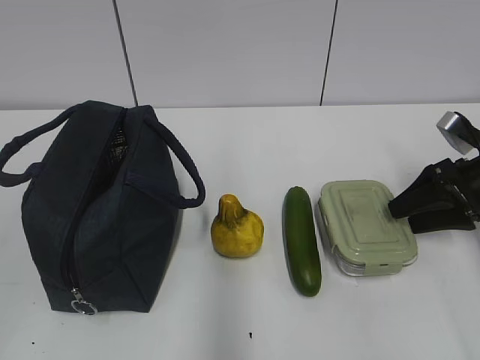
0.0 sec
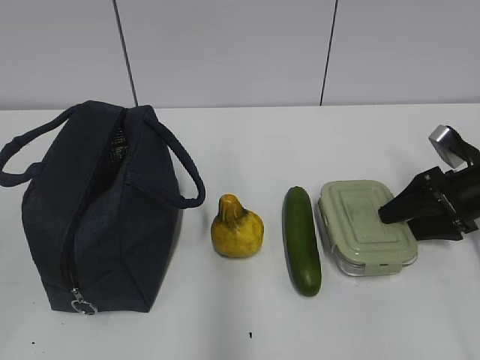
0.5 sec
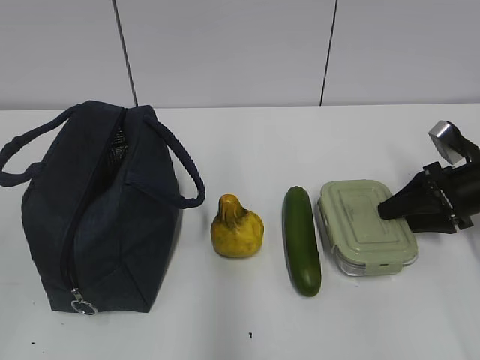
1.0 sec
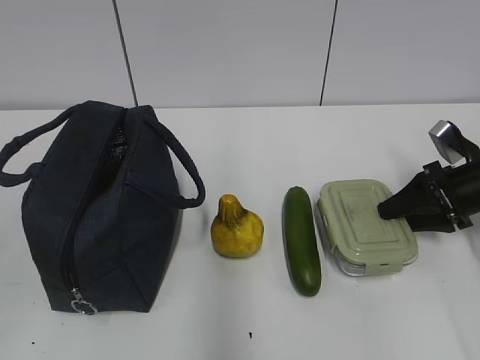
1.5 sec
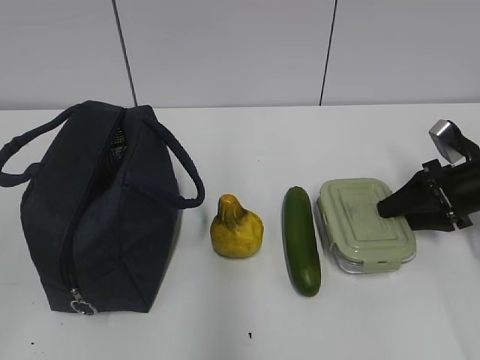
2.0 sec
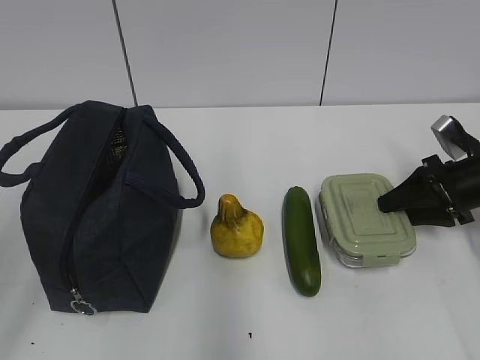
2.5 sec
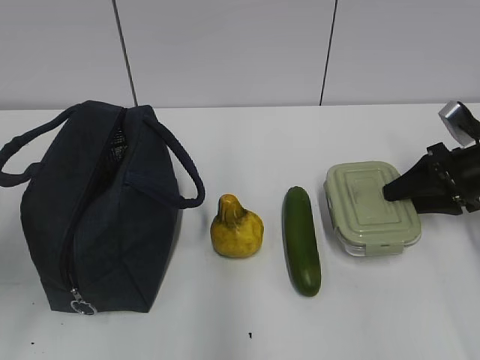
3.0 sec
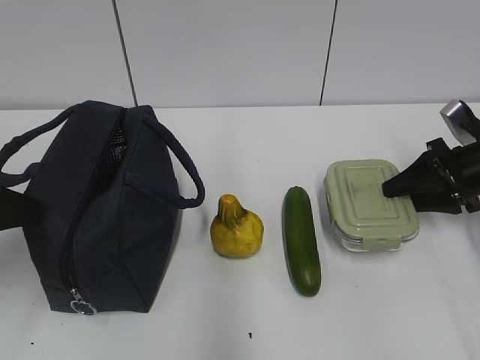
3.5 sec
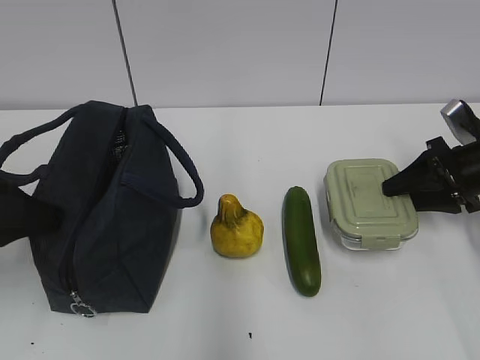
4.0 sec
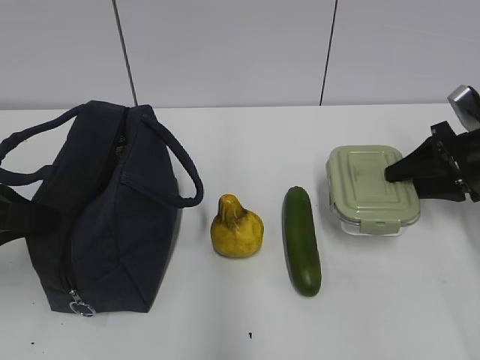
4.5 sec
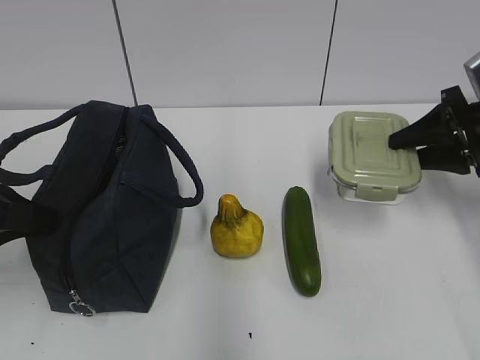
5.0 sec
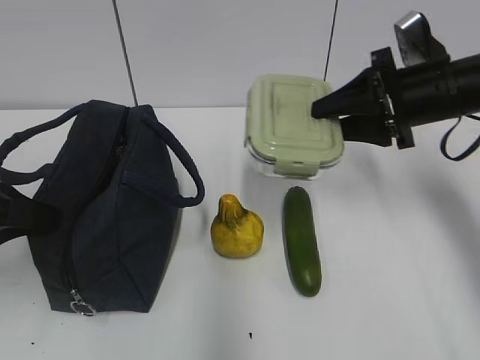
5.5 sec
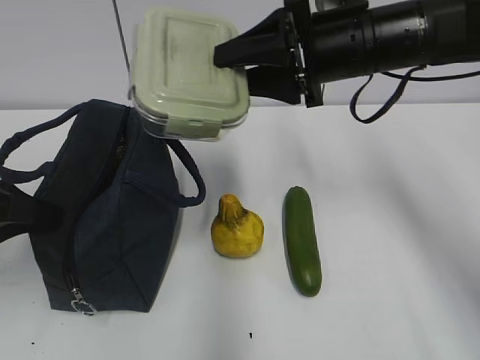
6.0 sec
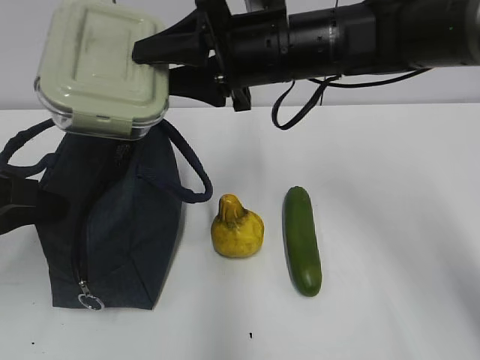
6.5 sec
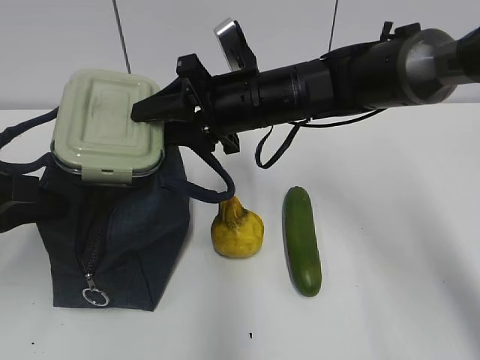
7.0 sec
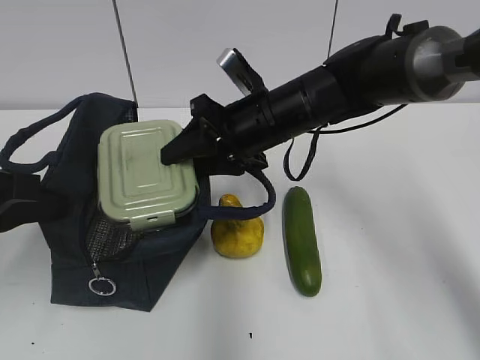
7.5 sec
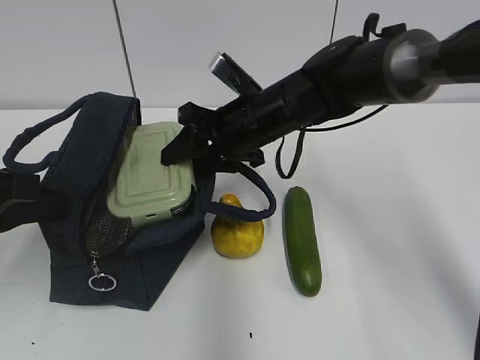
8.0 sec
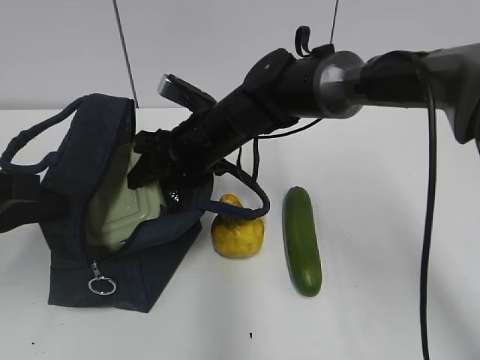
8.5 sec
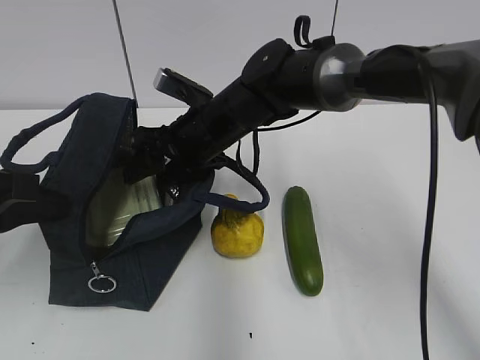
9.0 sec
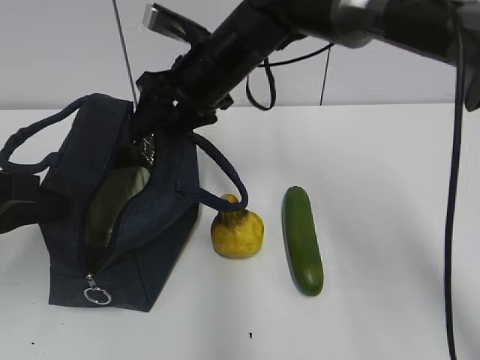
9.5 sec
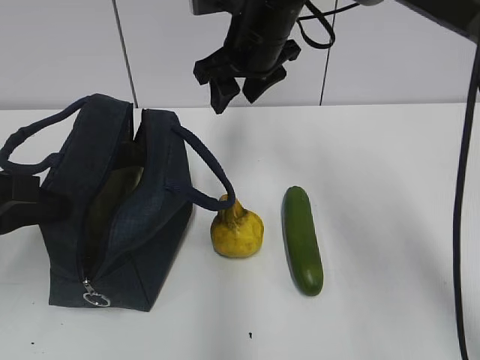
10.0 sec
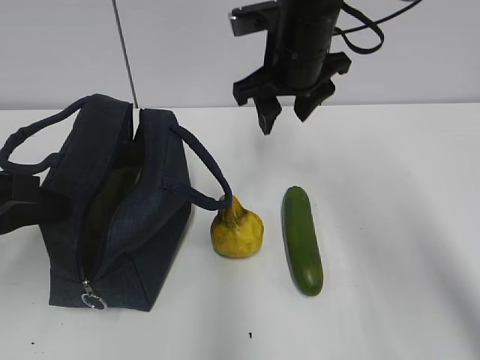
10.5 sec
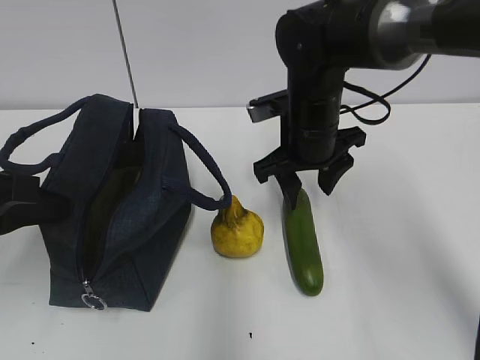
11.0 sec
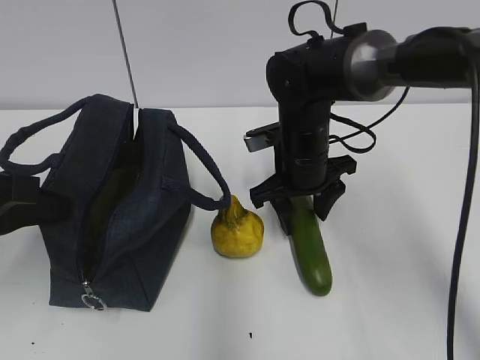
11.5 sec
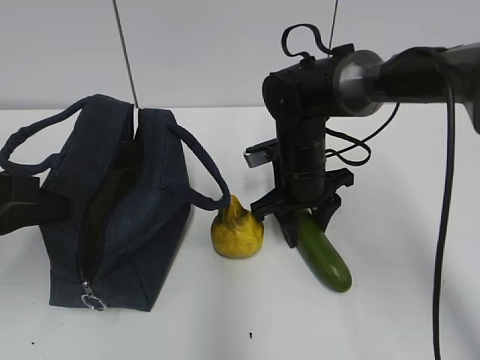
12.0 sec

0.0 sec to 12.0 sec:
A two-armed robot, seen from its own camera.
Step, 0.0 sec to 2.5 sec: Grab the lunch box with your right hand.
Step, 3.0 sec to 4.0 sec: Grab the lunch bag with your left hand.
Step, 4.5 sec to 9.0 sec: Place it into the bag with your right hand.
0.0 sec to 2.0 sec: The grippers move only a little.
2.0 sec to 4.0 sec: The left gripper is displaced forward by approximately 20 cm.
4.0 sec to 6.0 sec: The right gripper travels to the left and upward by some 25 cm. The left gripper closes.
6.0 sec to 8.0 sec: The right gripper is displaced downward and to the left by some 15 cm.
8.0 sec to 10.0 sec: The right gripper heads upward, covering approximately 10 cm.
10.0 sec to 12.0 sec: The right gripper travels downward by about 15 cm.

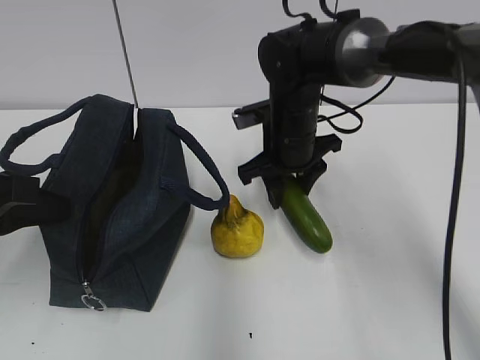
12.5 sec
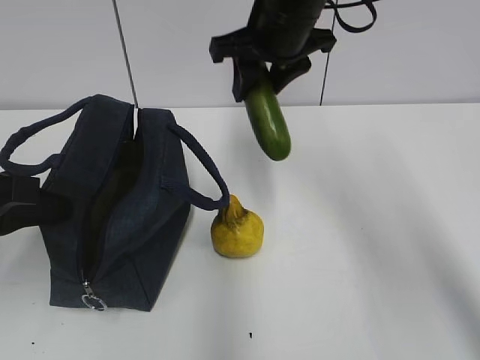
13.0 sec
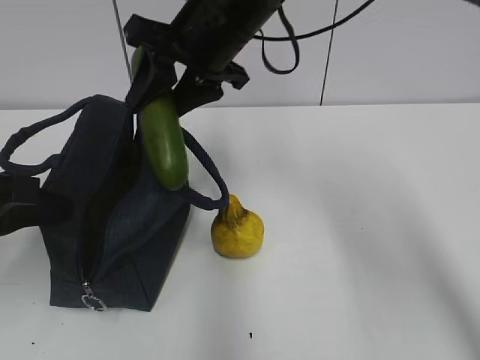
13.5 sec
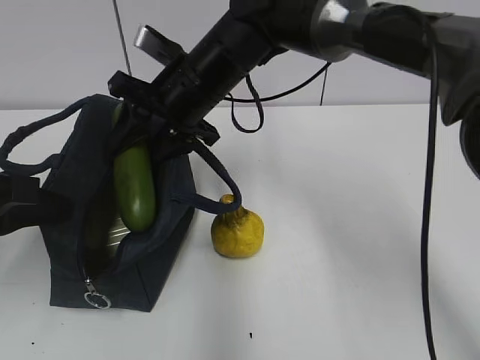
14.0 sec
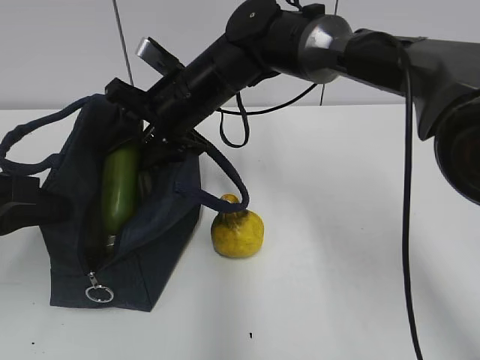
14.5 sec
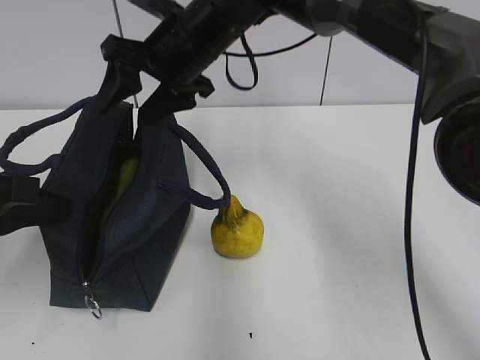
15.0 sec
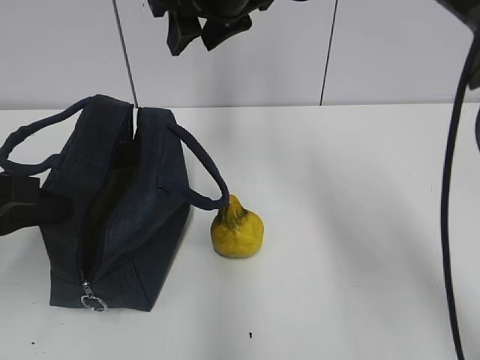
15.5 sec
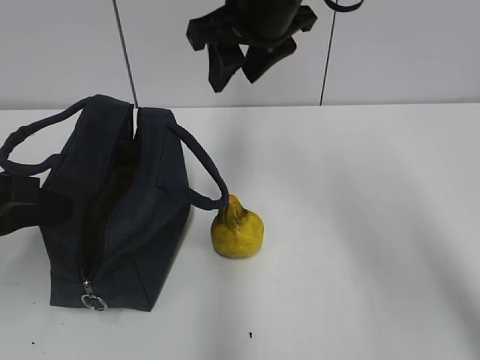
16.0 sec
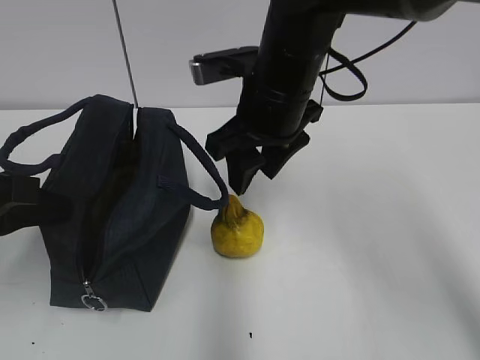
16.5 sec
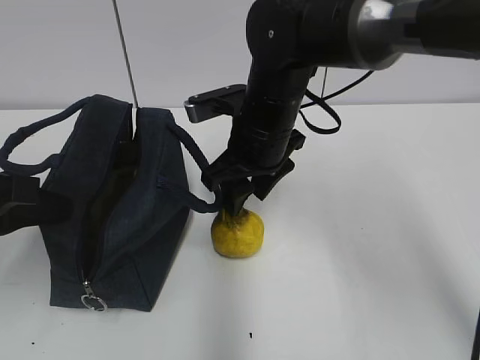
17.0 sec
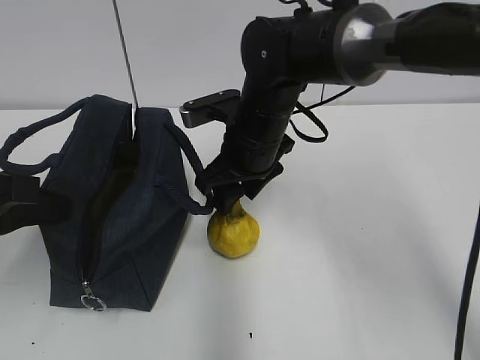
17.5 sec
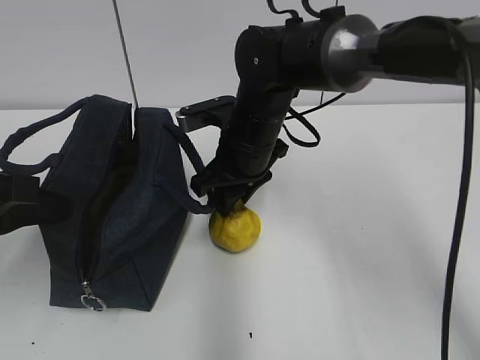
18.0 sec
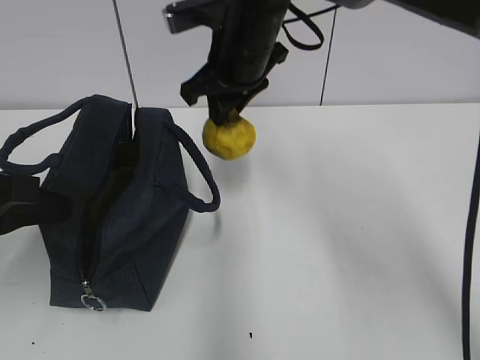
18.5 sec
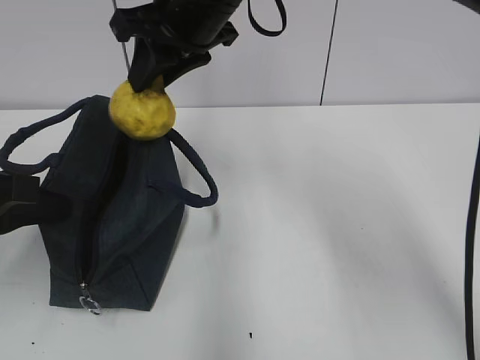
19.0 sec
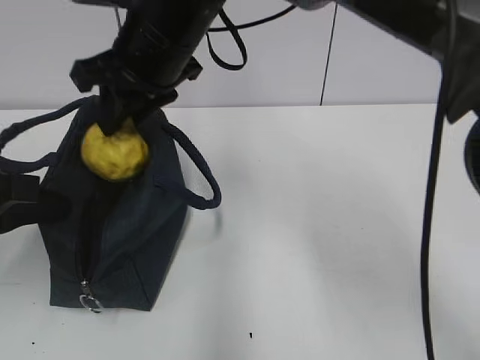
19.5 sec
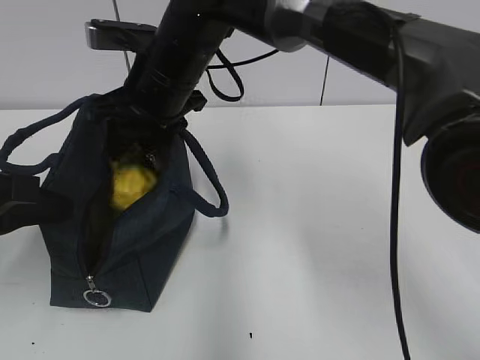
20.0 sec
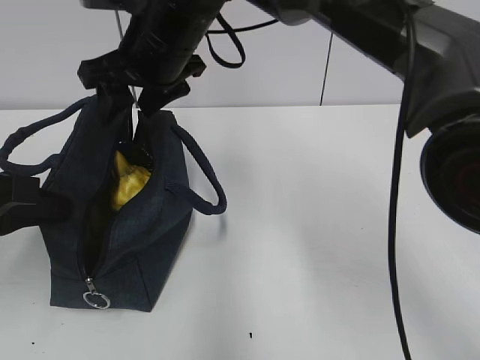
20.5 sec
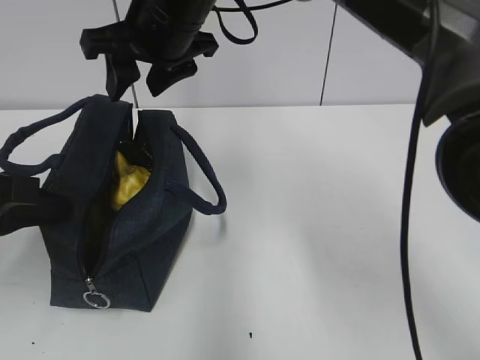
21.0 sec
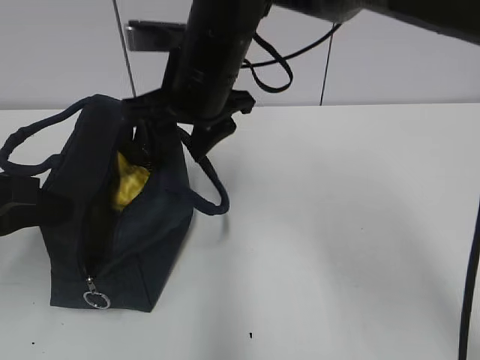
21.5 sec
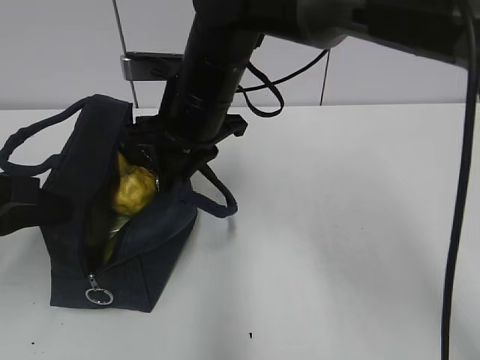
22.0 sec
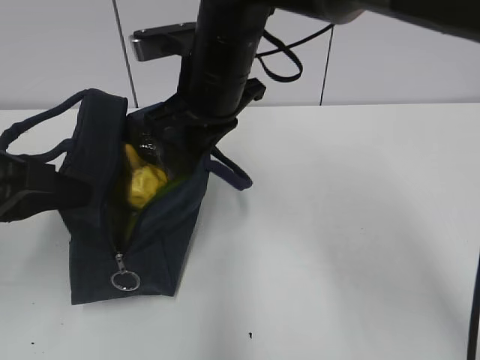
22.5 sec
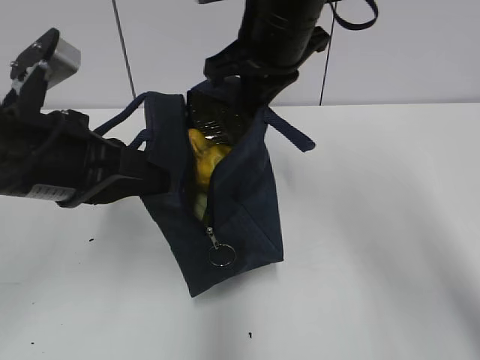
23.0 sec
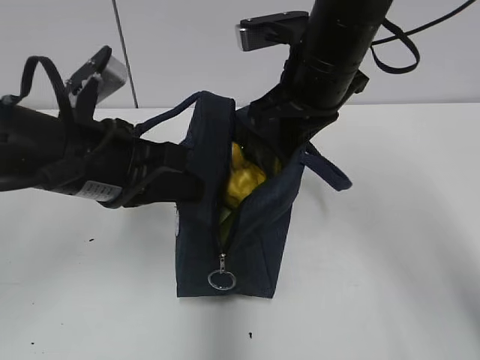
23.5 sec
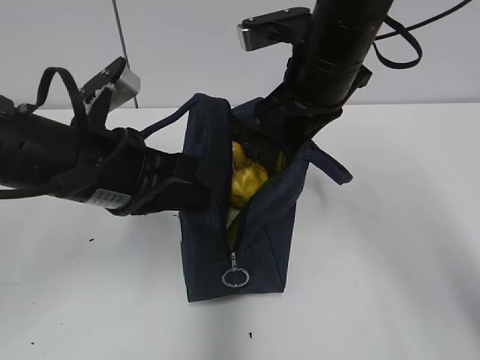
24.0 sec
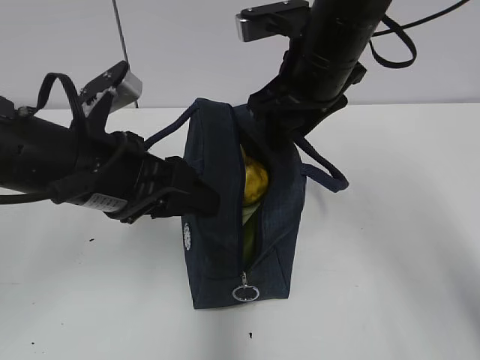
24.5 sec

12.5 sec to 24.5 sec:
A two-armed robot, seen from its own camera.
Step, 12.5 sec to 14.5 sec: Place it into the bag with your right hand.
Step, 15.0 sec to 18.0 sec: Grab the pear with your right hand.
Step, 20.5 sec to 22.0 sec: Grab the lunch bag with your right hand.
12.5 sec to 14.5 sec: The right gripper travels to the left by about 10 cm, and travels upward and back again, roughly 15 cm each way.
14.5 sec to 16.5 sec: The right gripper shifts approximately 10 cm to the right and backward, and goes upward and returns, roughly 15 cm each way.
16.5 sec to 18.5 sec: The right gripper moves forward, some 5 cm, reaches roughly 5 cm downward, then returns, and closes.
18.5 sec to 20.5 sec: The right gripper is displaced to the left by about 5 cm, and opens.
20.5 sec to 22.5 sec: The right gripper changes place by some 5 cm, and closes up.
22.5 sec to 24.5 sec: The two grippers go approximately 10 cm to the right. The right gripper opens. Meanwhile the left gripper opens.

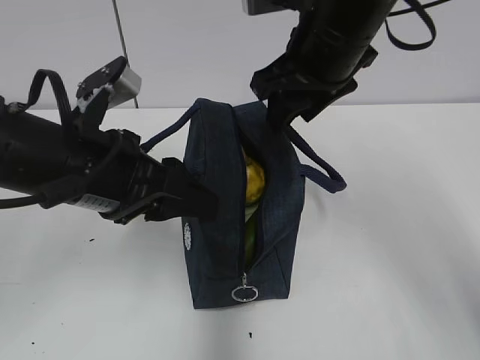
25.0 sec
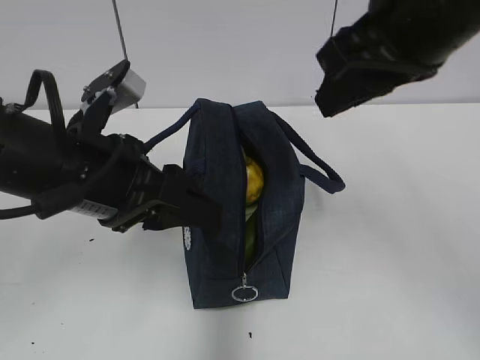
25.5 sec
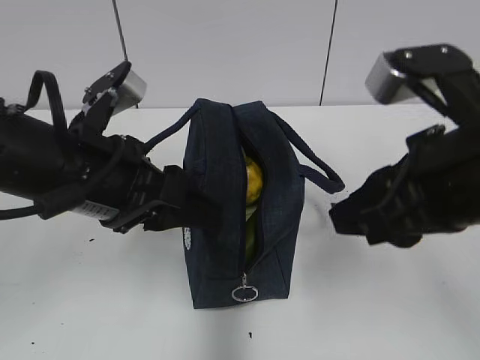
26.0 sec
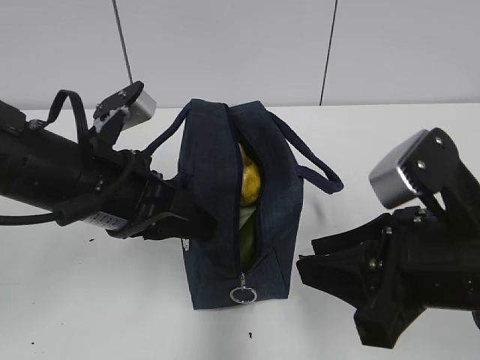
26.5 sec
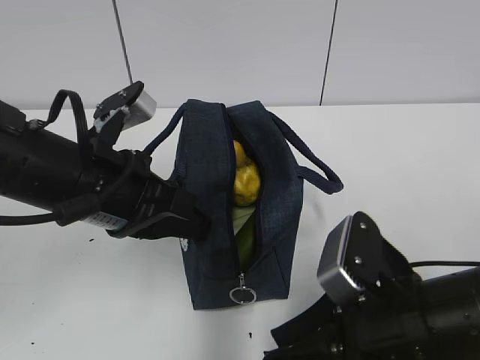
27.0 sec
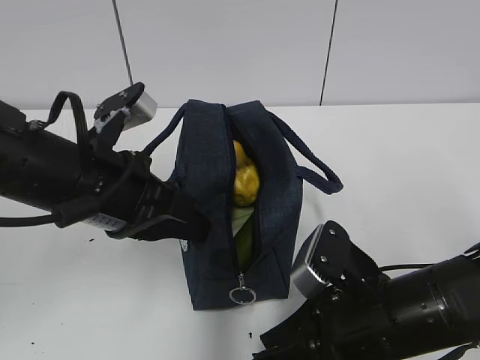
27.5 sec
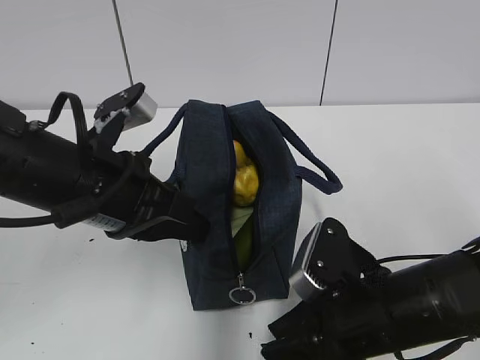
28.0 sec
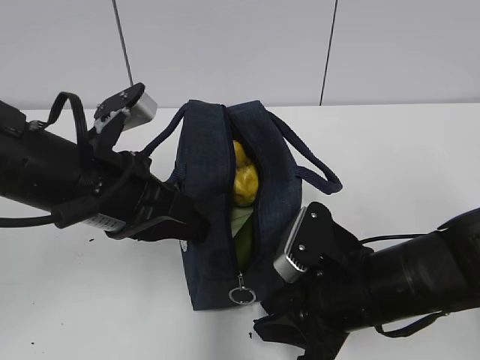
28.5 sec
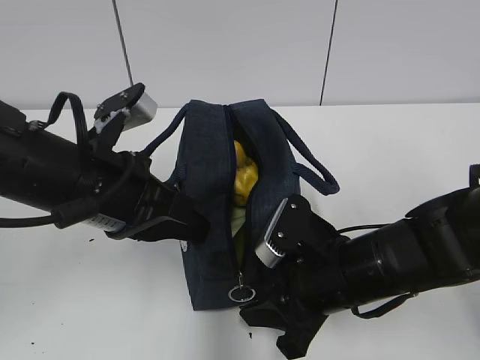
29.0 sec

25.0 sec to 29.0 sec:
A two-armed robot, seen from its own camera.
25.0 sec to 27.0 sec: The right gripper moves backward and downward, approximately 25 cm. The left gripper closes.
27.0 sec to 29.0 sec: The right gripper is displaced forward by some 5 cm.
